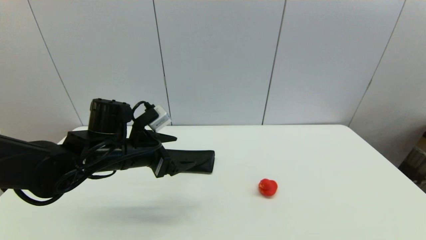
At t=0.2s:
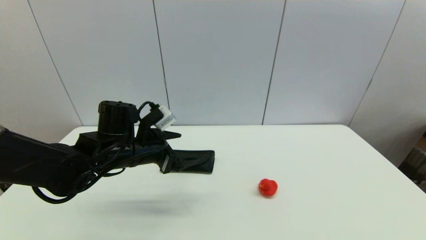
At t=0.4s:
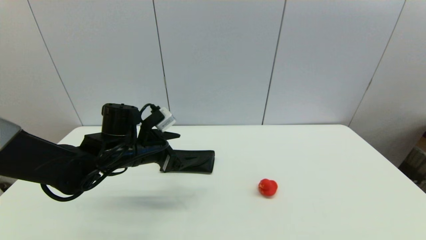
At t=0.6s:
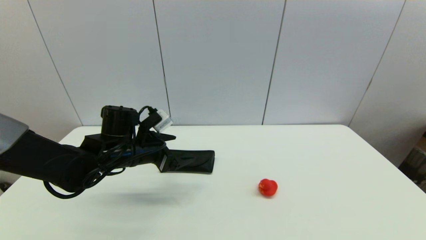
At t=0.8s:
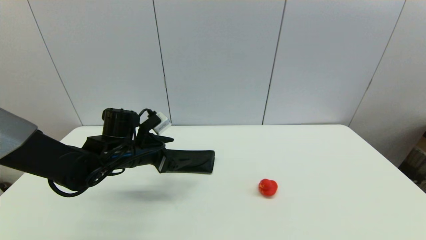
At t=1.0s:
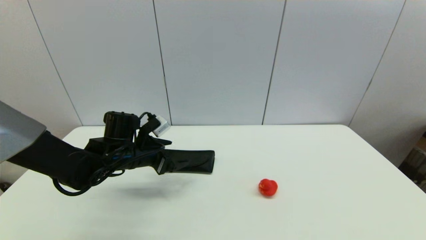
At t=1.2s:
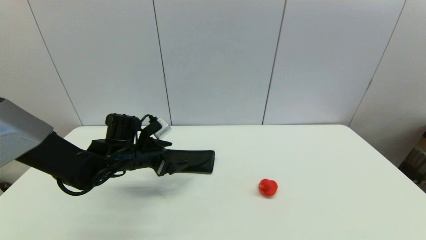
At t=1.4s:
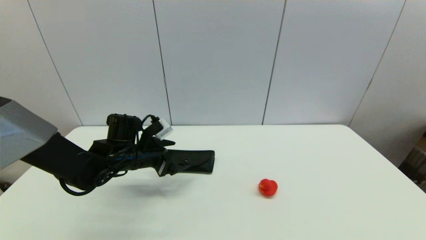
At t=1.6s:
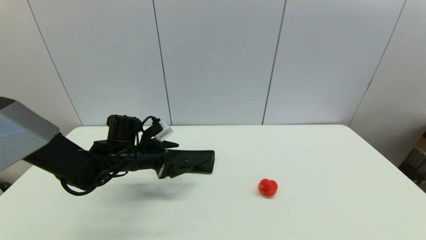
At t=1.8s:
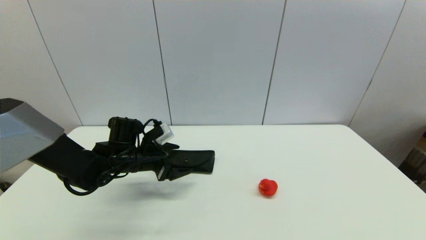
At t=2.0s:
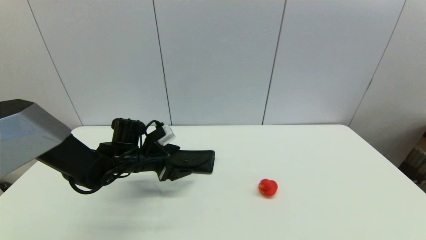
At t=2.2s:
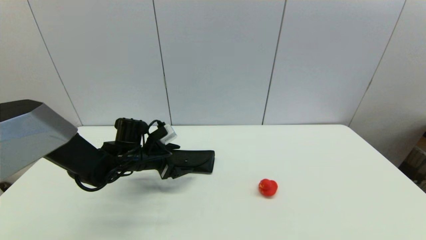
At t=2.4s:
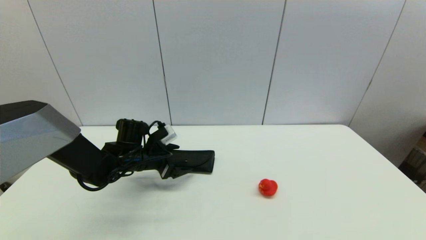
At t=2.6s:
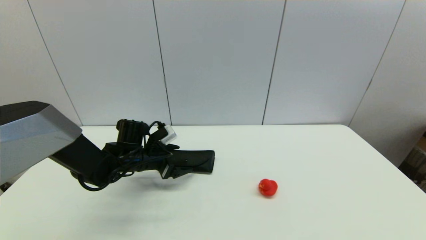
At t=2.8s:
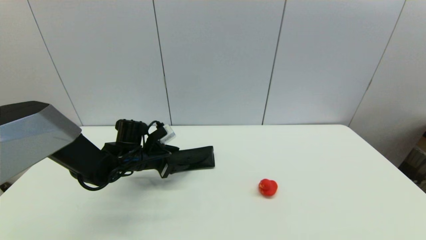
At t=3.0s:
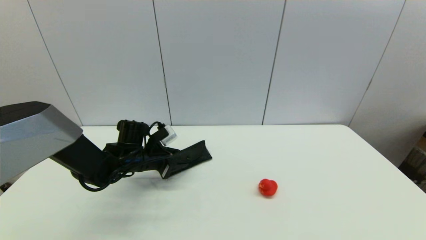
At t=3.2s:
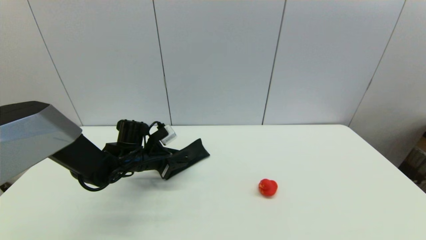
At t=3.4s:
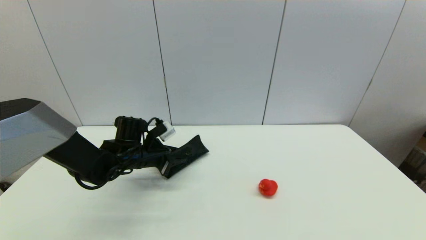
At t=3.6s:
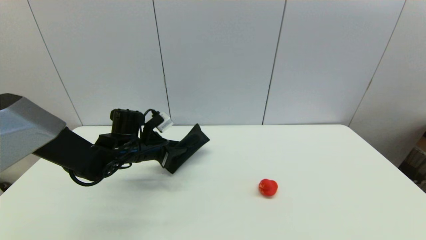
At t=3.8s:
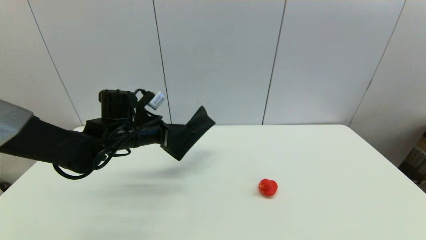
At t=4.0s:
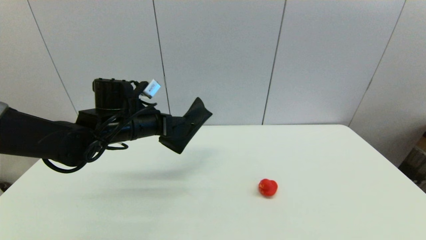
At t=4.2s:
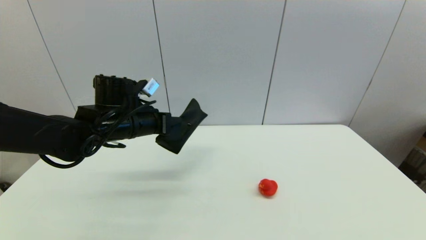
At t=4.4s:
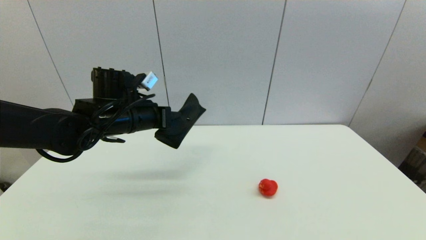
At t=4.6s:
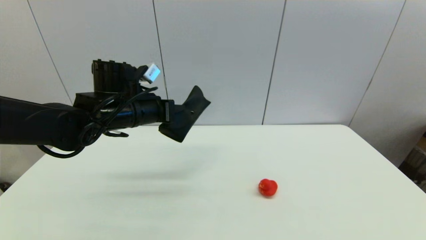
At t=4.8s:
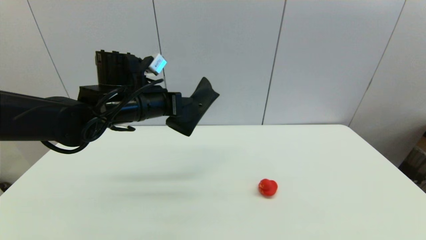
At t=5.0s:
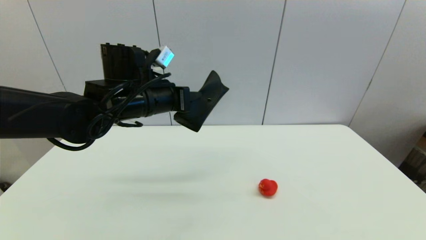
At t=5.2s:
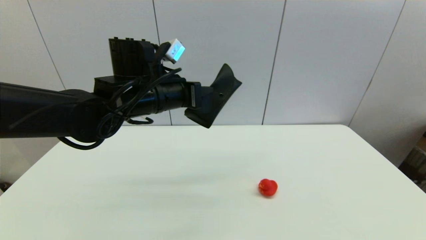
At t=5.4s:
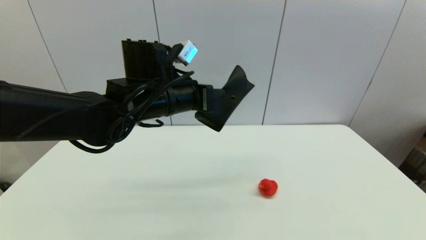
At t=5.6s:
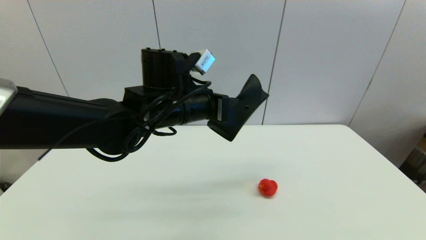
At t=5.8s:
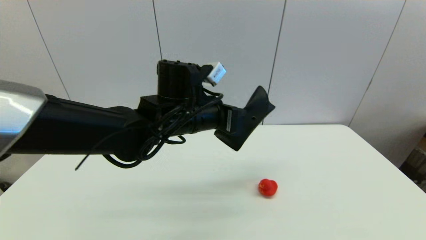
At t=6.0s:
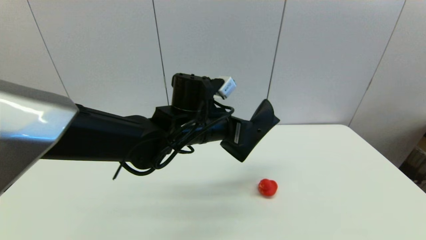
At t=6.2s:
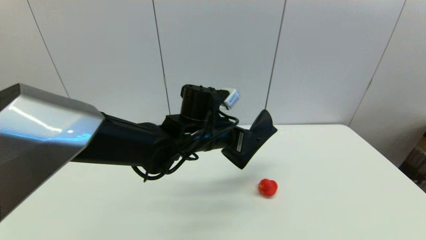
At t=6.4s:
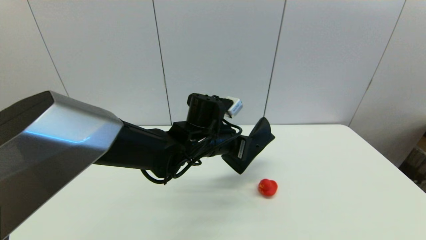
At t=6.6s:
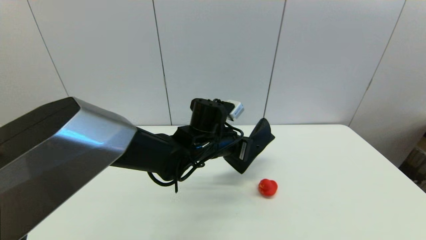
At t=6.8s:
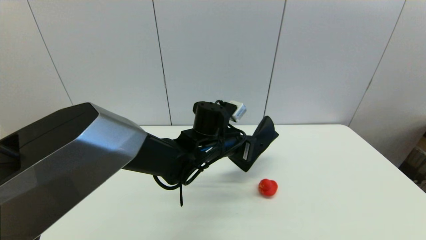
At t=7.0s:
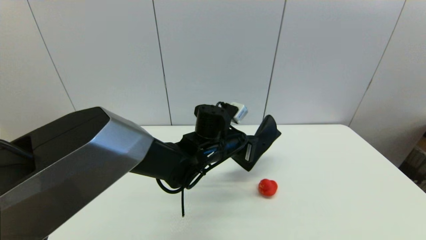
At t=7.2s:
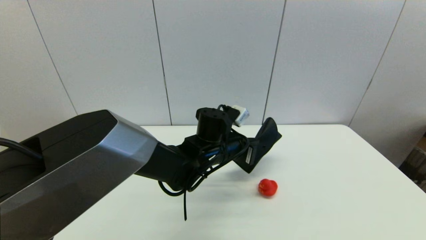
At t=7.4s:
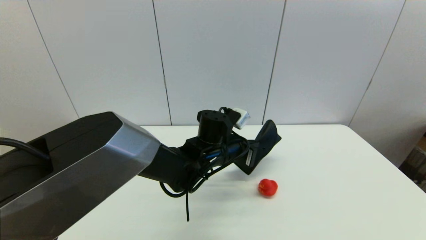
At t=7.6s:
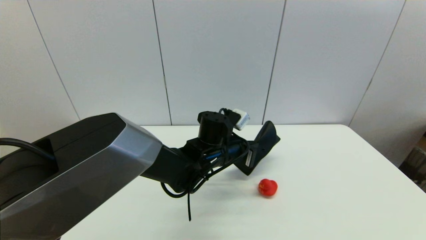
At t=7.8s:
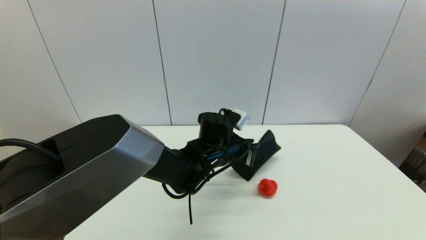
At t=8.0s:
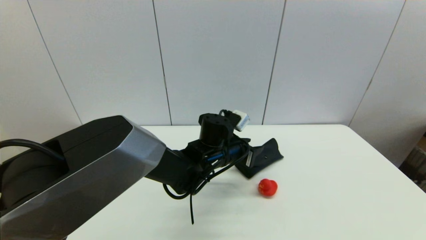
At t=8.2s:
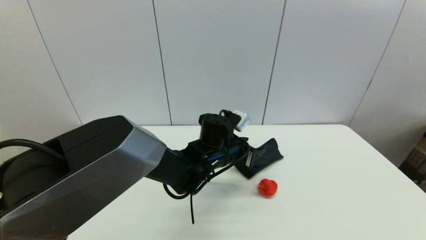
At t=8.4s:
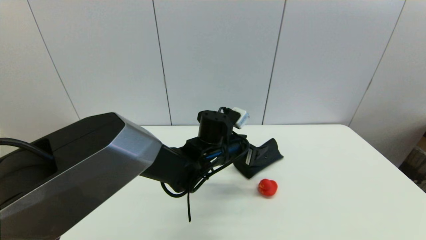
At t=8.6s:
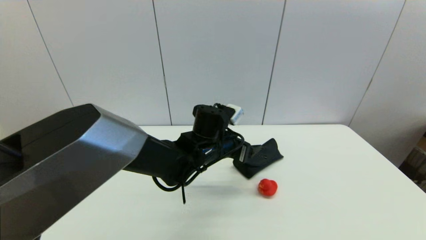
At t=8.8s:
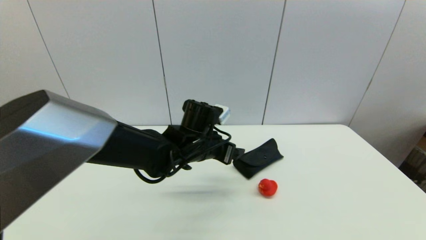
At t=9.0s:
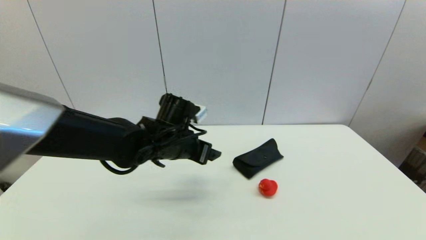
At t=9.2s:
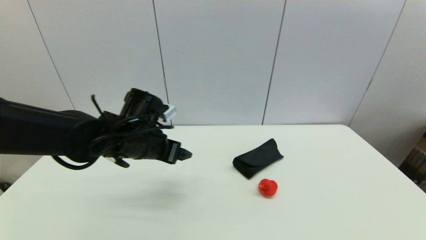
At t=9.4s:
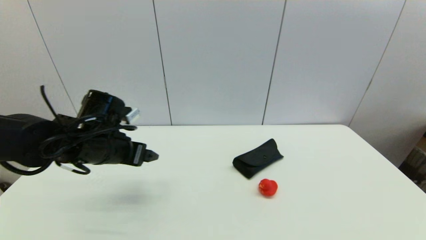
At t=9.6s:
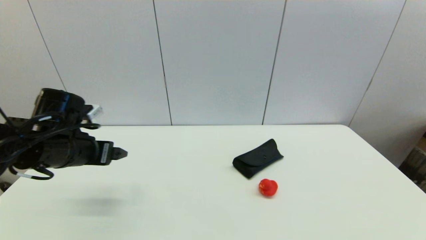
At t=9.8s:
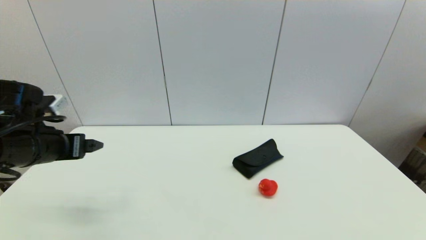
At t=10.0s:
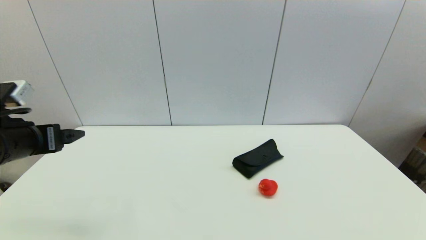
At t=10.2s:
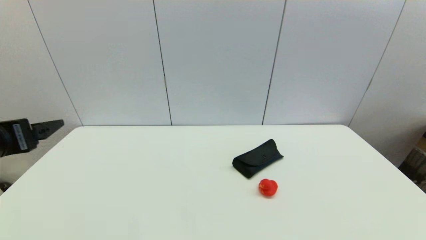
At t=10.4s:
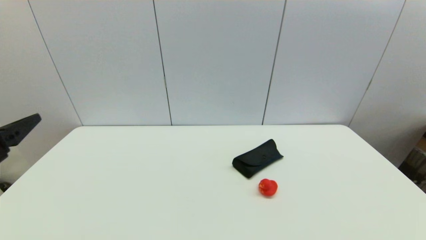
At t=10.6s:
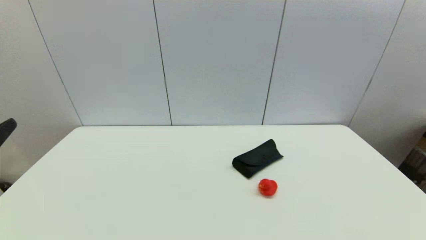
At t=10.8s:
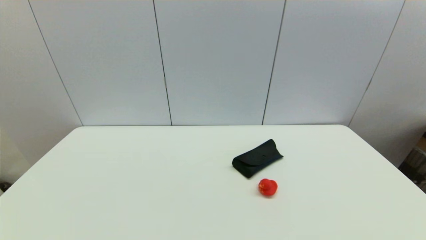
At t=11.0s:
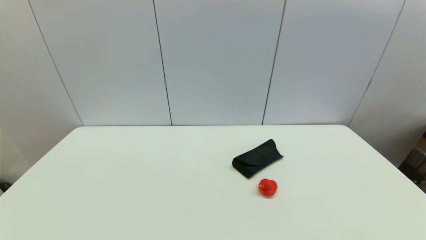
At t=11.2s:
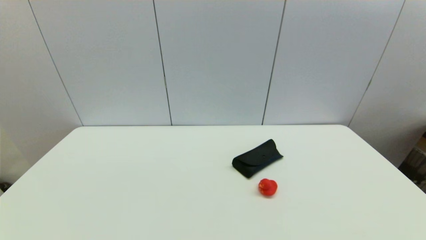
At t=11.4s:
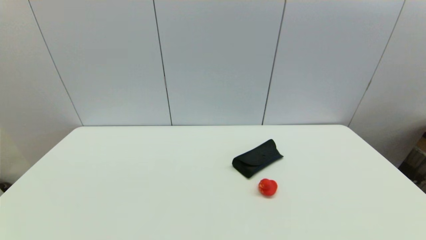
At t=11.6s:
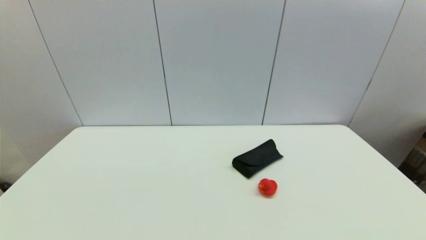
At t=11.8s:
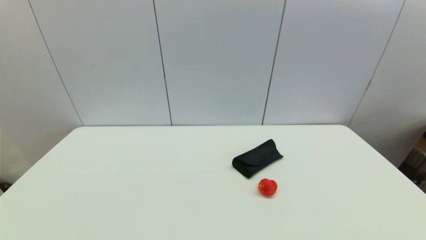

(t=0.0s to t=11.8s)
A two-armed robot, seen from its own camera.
Step, t=0.0s - t=3.0s: Grasp the glasses case with left gripper.
Step, t=3.4s - t=8.0s: Place the glasses case on the table with left gripper.
t=0.0s - t=1.4s: The left gripper moves downward and forward, approximately 10 cm.
t=1.4s - t=3.0s: The left gripper closes its fingers.
t=3.0s - t=4.4s: The left gripper travels upward by roughly 15 cm, and closes up.
t=4.4s - t=6.0s: The left gripper goes some 15 cm to the right.
t=6.0s - t=7.4s: The left gripper shifts about 10 cm downward.
t=7.4s - t=8.8s: The left gripper moves to the left, approximately 5 cm, and opens its fingers.
t=8.8s - t=10.4s: The left gripper heads to the left and backward, covering about 35 cm.
t=10.4s - t=11.8s: The left gripper heads downward and backward, covering some 20 cm.

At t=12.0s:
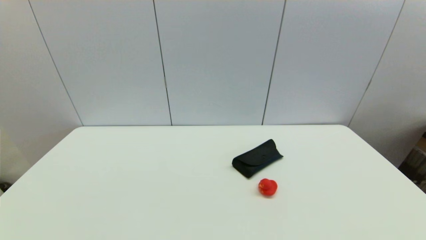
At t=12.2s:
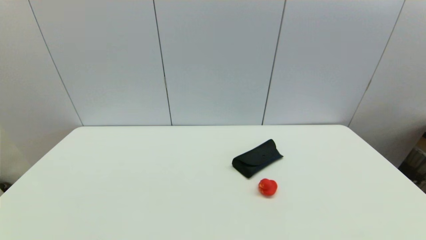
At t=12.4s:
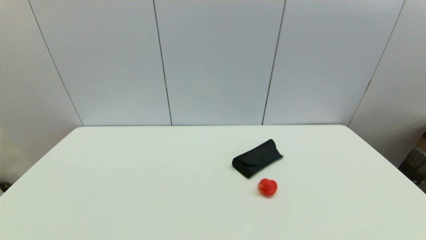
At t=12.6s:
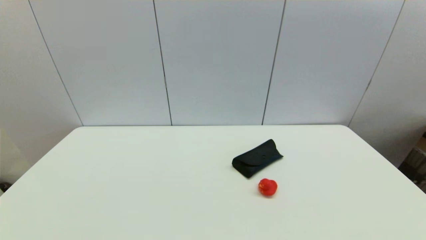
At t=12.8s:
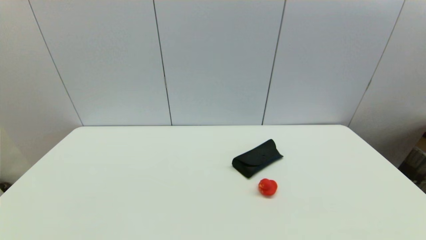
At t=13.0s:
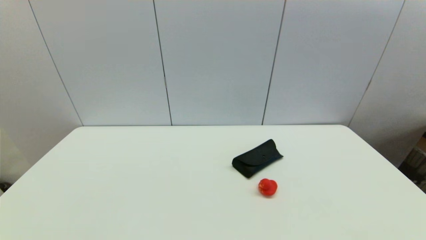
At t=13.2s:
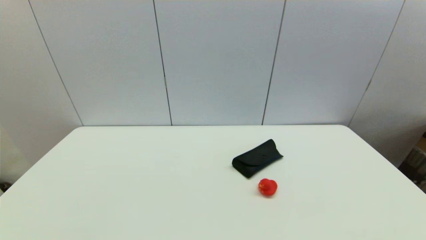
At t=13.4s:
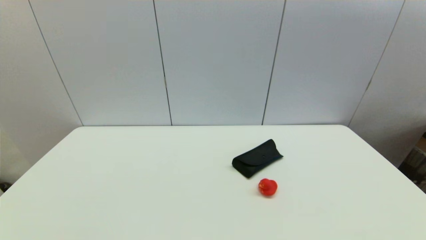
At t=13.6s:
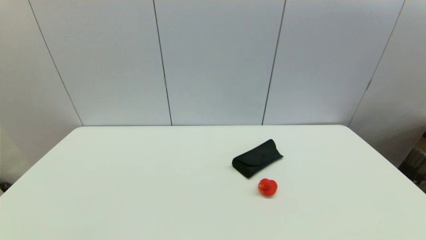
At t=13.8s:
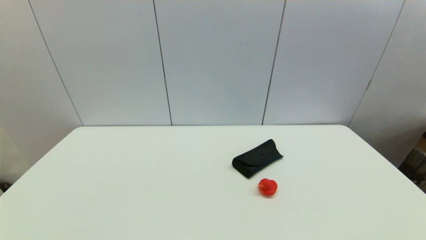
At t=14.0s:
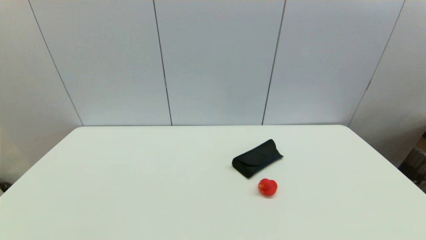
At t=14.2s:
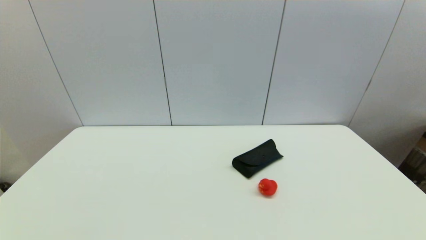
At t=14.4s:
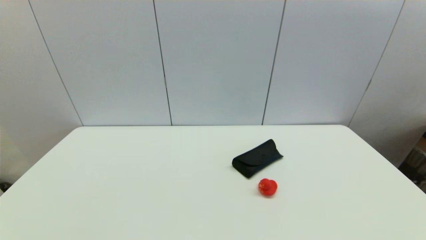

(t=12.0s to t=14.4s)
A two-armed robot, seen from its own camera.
t=13.2s - t=14.4s: Both grippers stay put.
